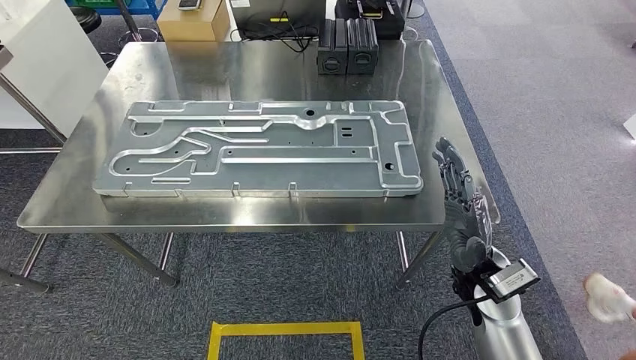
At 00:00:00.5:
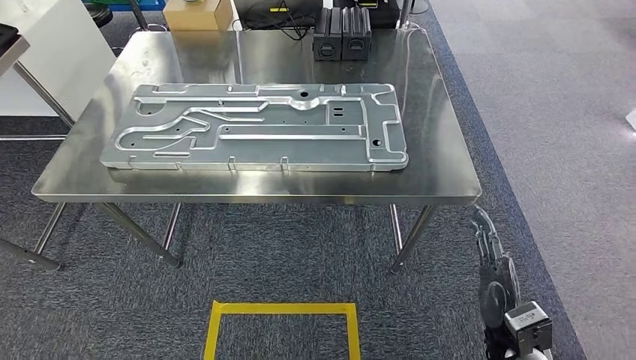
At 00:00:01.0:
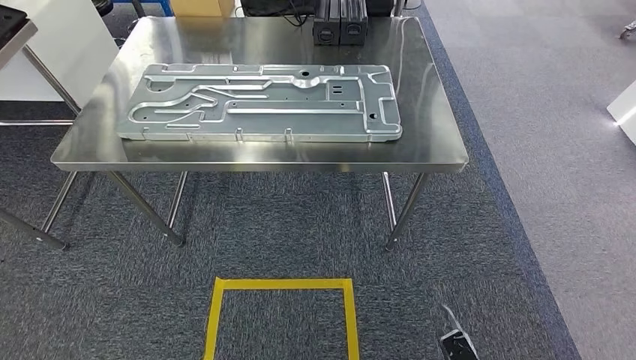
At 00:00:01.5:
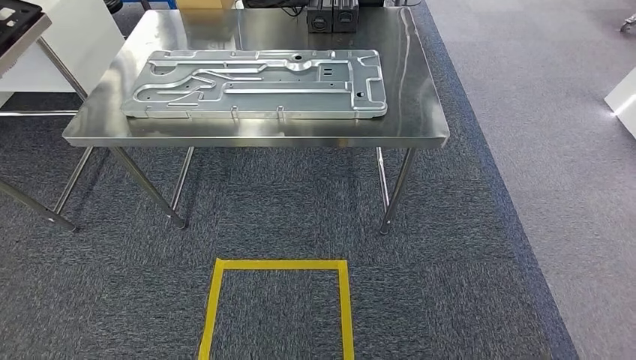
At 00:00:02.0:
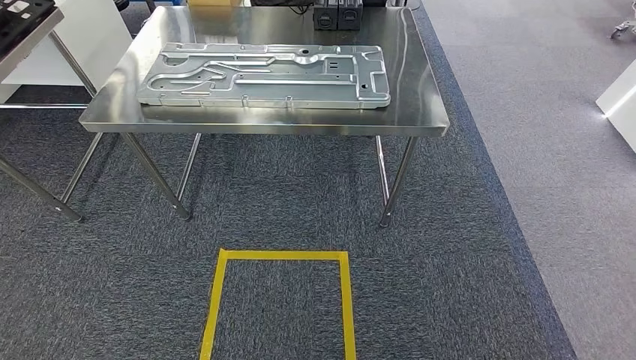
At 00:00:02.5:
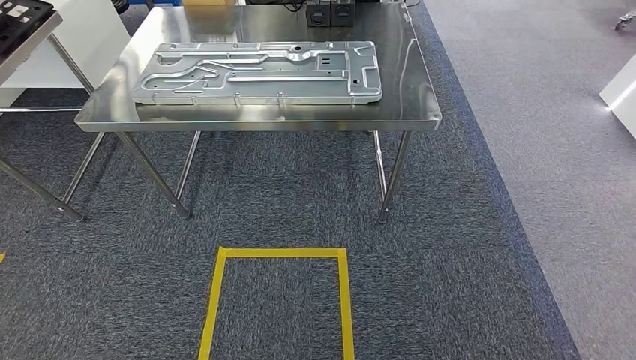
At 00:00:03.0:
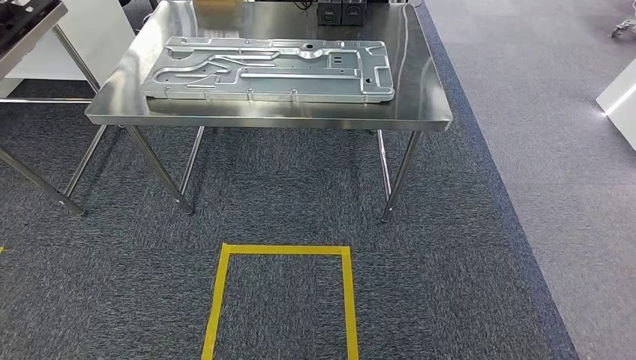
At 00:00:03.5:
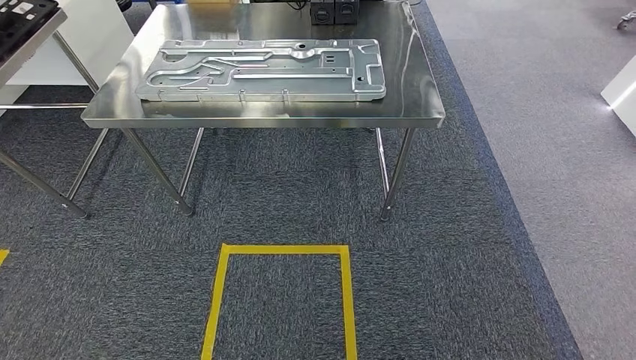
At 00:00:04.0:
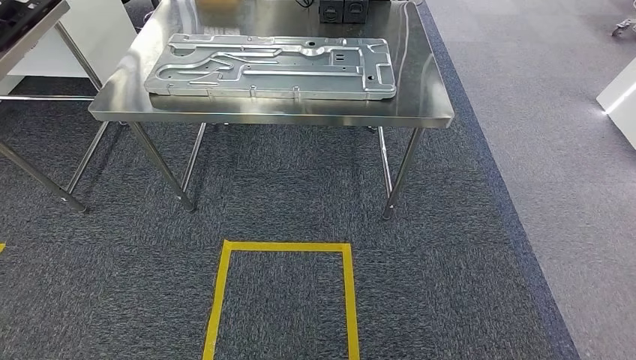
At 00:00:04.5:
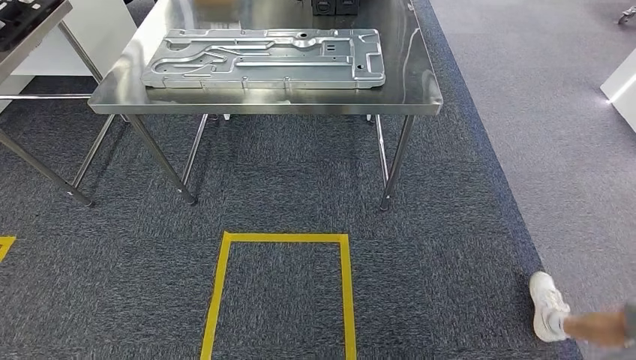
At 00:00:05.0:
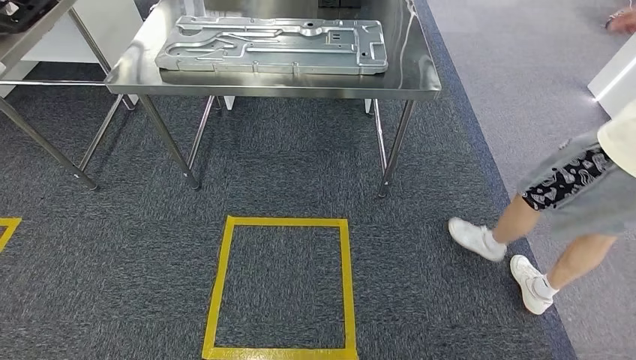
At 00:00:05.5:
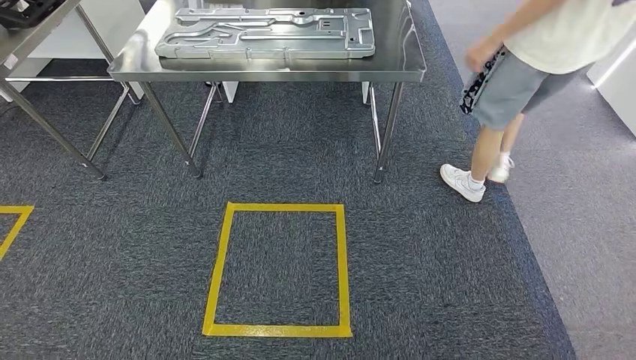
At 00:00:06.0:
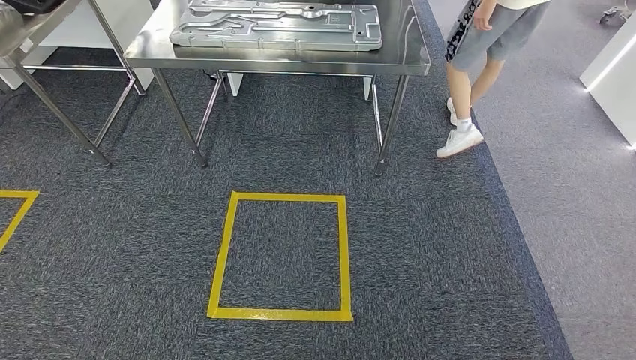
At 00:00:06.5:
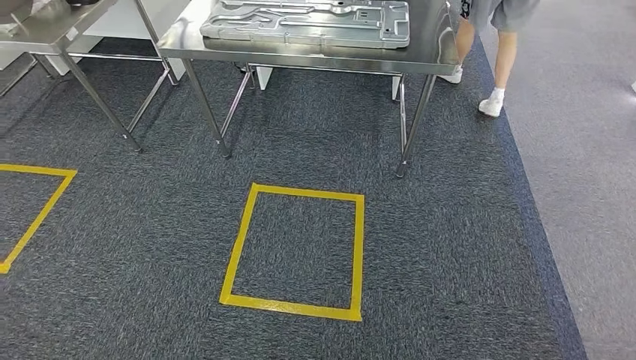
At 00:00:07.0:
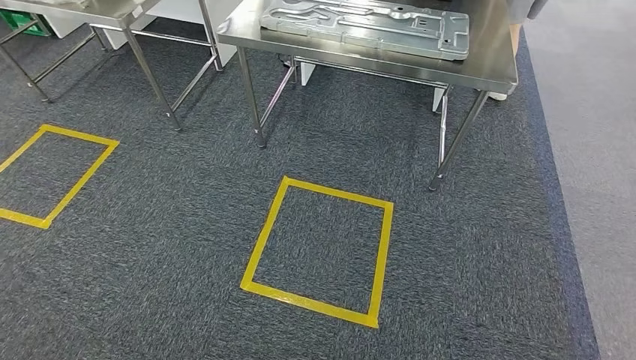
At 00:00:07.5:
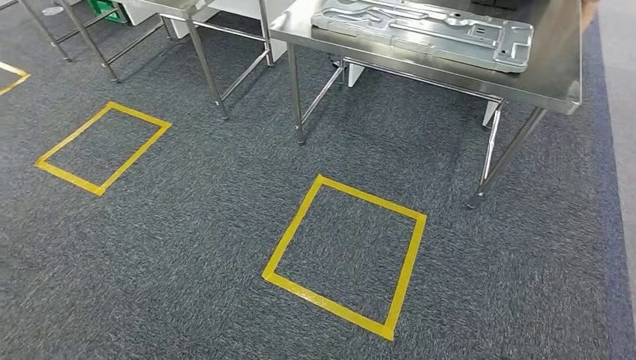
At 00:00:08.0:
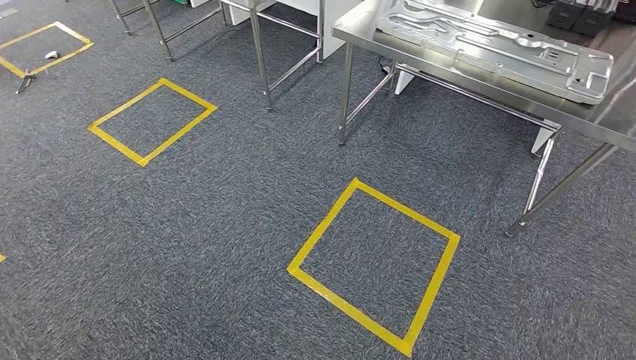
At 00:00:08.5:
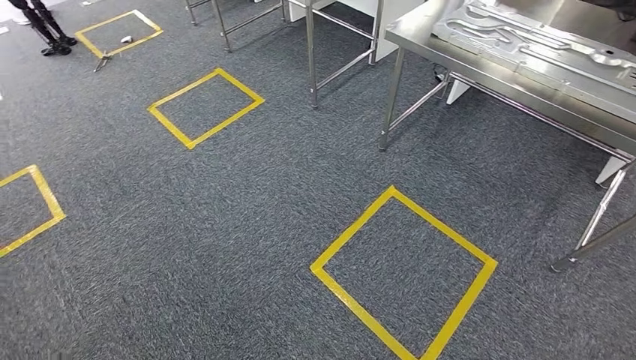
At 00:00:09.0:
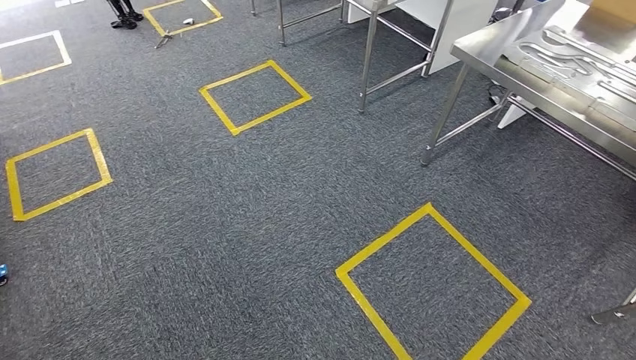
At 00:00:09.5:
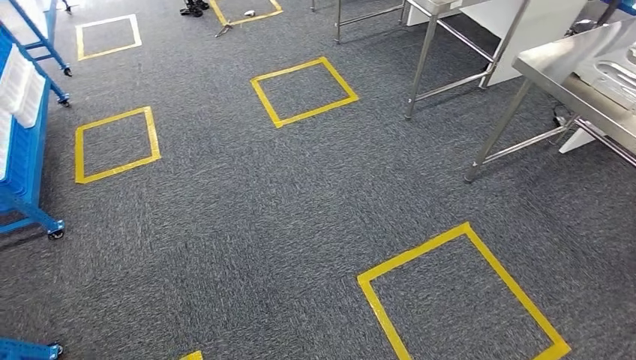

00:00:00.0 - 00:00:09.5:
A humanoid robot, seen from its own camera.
00:00:02.0 - 00:00:04.0: The hands move only a little.

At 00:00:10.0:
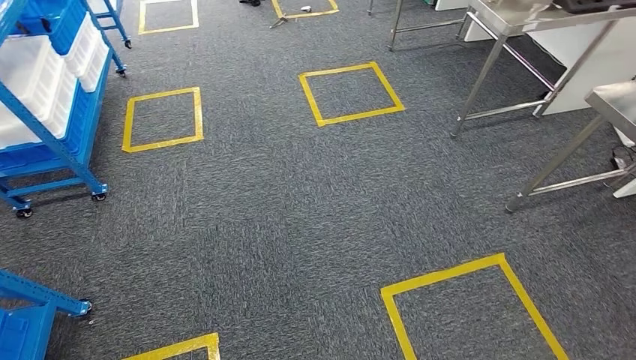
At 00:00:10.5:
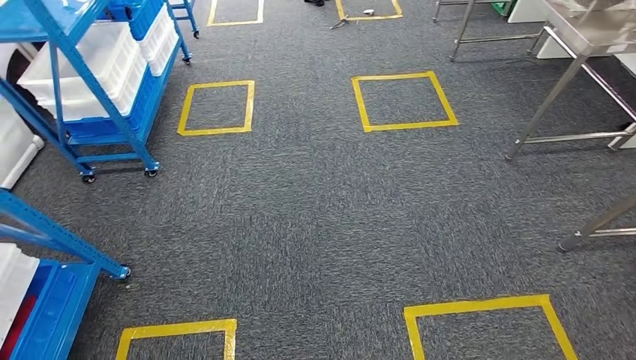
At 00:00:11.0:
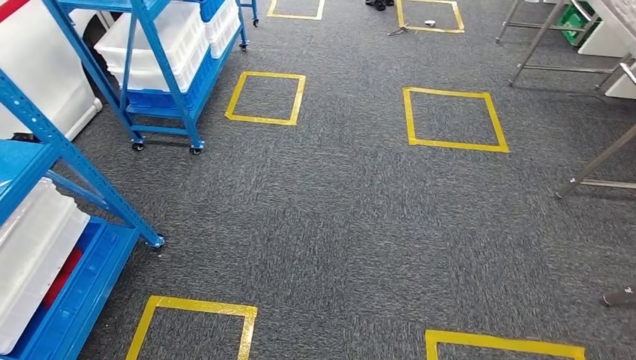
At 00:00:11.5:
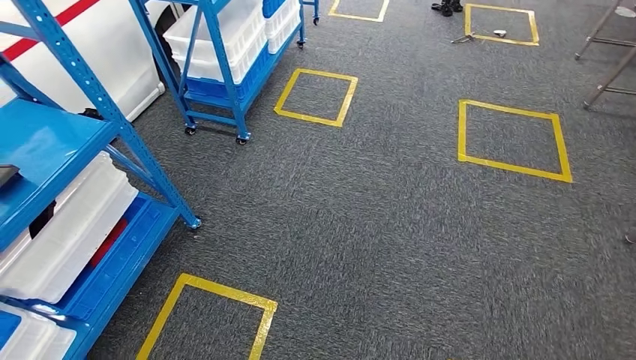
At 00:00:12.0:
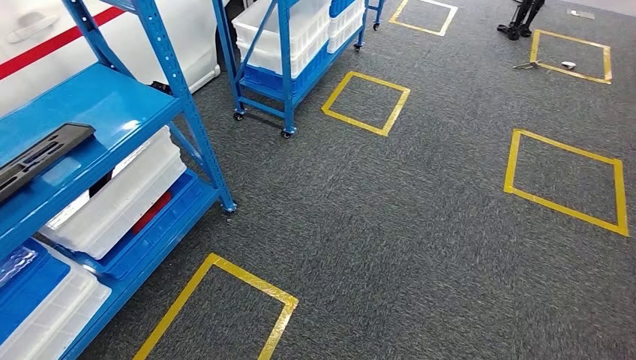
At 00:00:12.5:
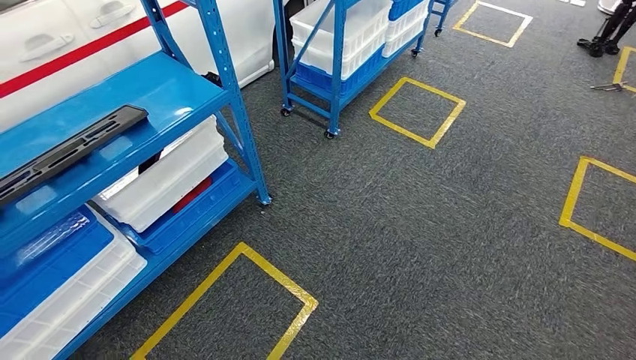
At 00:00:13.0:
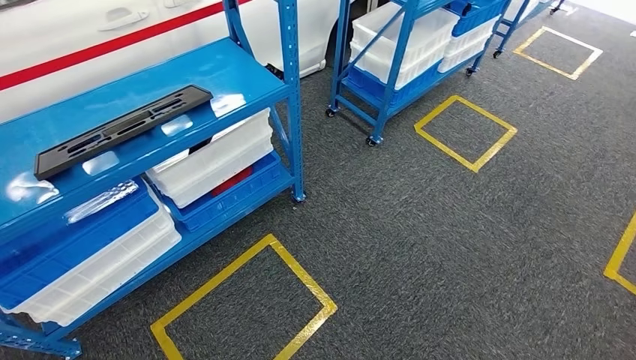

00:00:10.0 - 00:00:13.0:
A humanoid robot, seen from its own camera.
Step, 00:00:10.0 - 00:00:13.0: Return to the initial position at the shelf.

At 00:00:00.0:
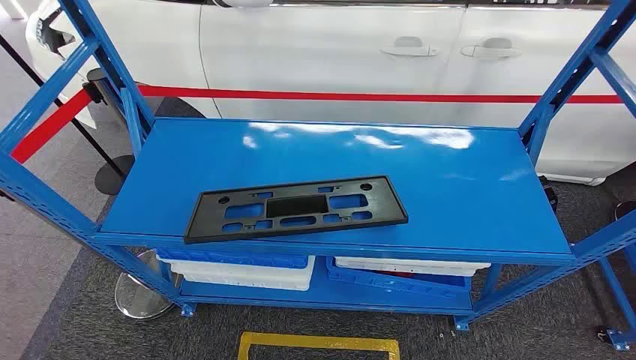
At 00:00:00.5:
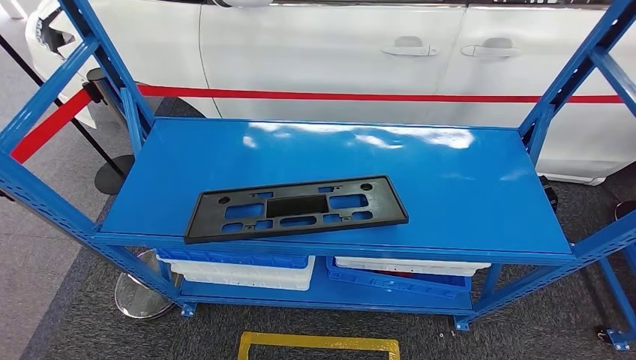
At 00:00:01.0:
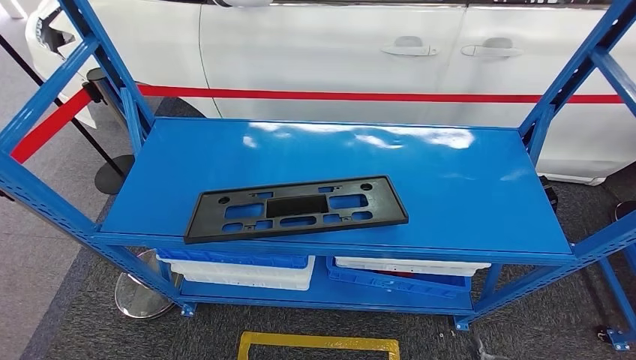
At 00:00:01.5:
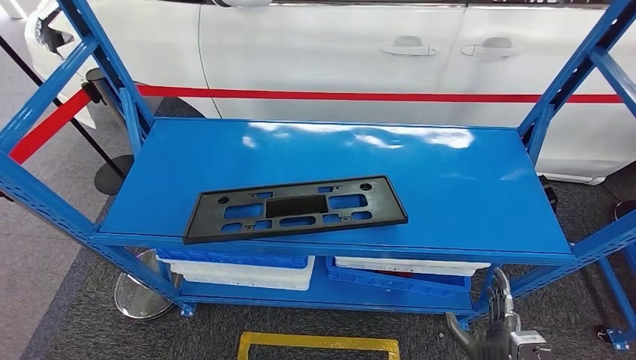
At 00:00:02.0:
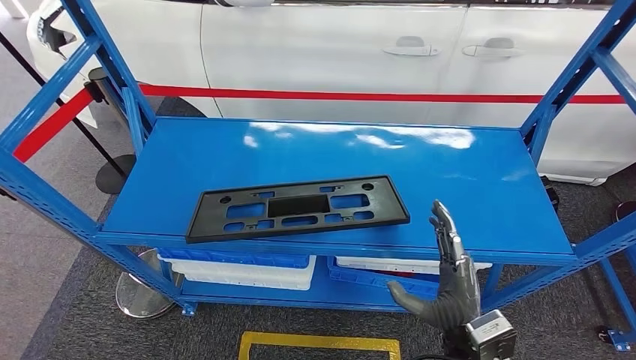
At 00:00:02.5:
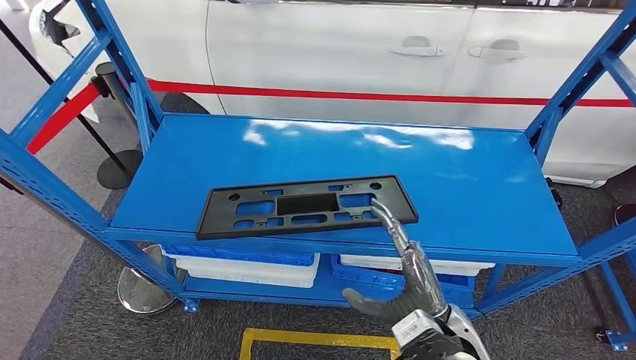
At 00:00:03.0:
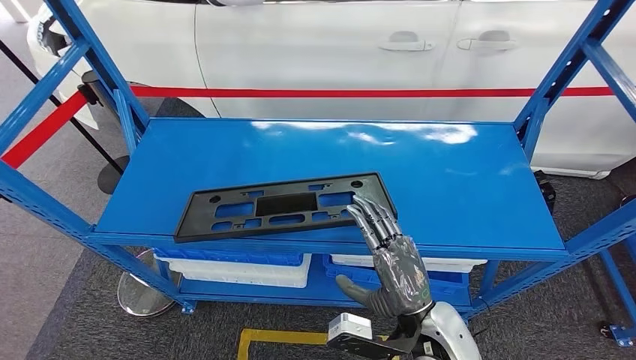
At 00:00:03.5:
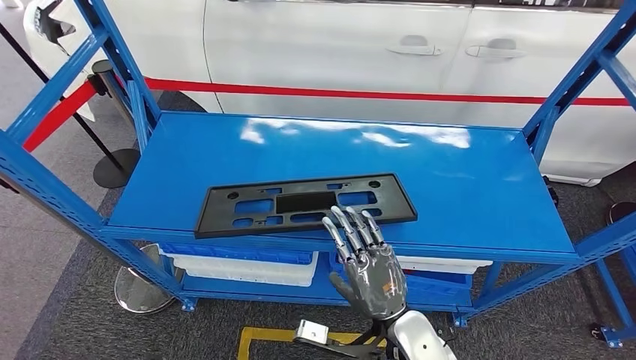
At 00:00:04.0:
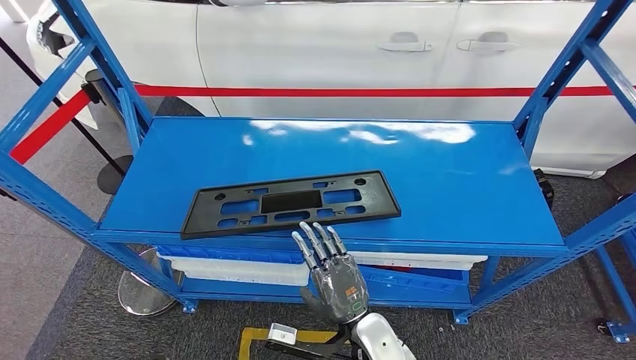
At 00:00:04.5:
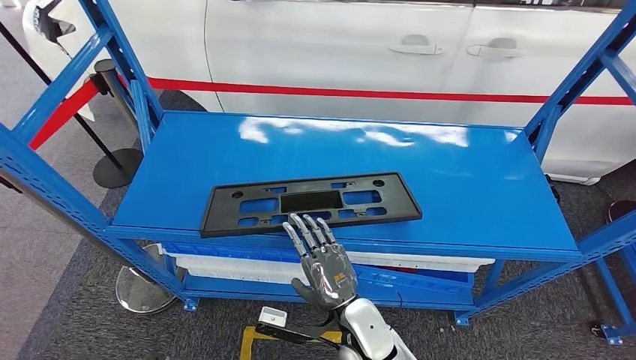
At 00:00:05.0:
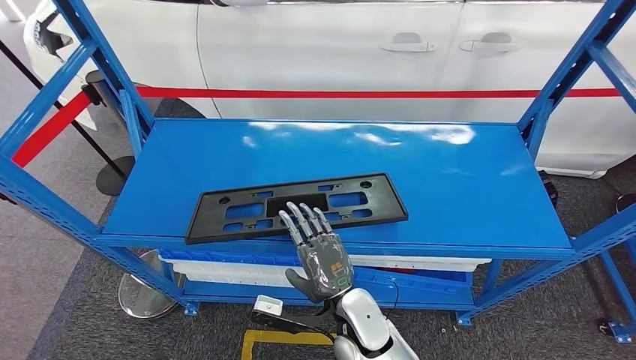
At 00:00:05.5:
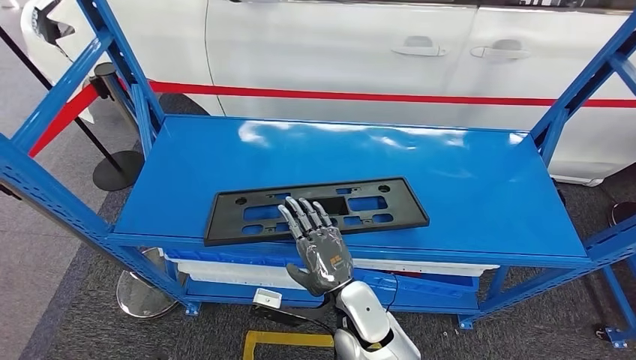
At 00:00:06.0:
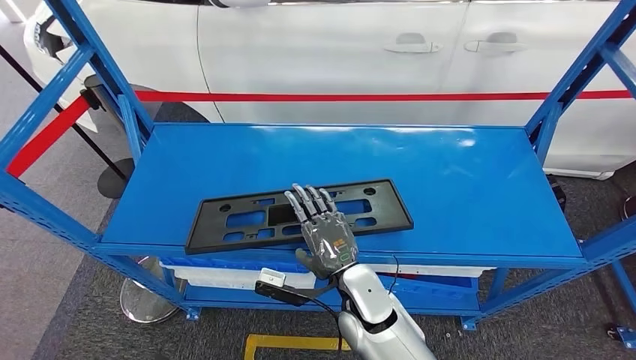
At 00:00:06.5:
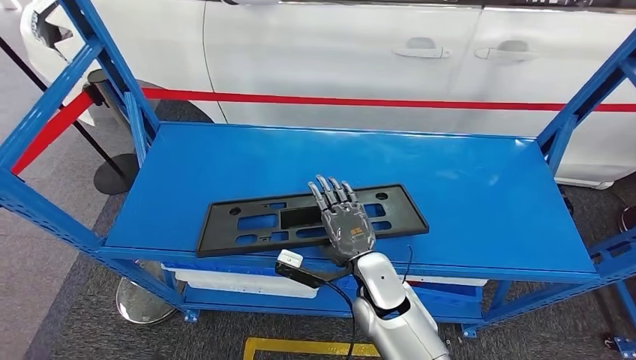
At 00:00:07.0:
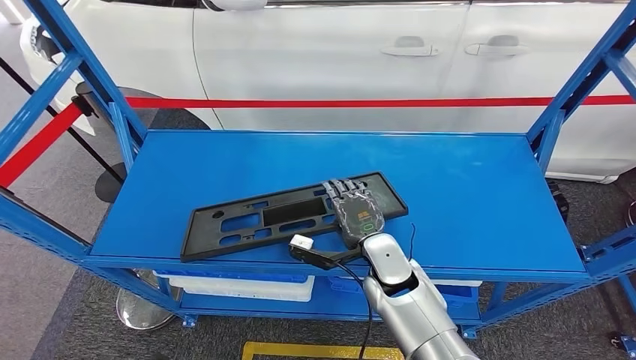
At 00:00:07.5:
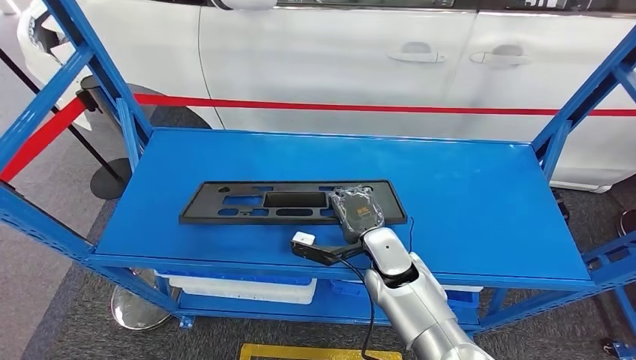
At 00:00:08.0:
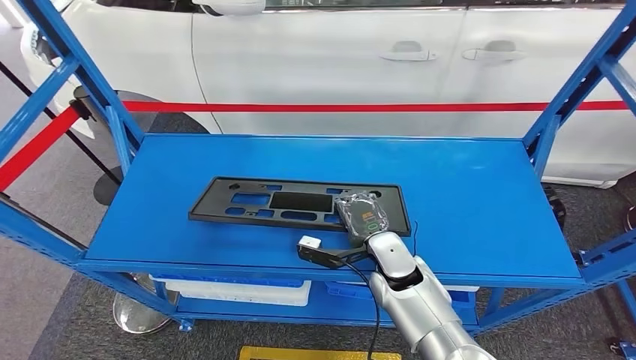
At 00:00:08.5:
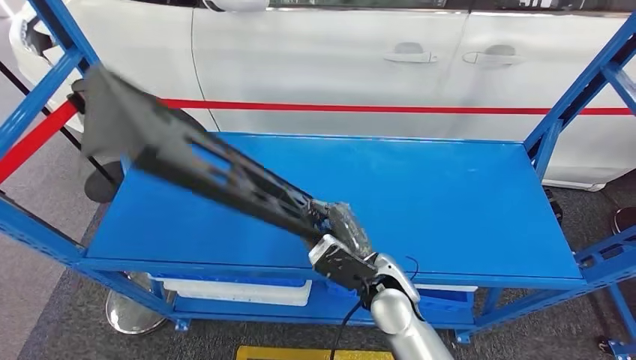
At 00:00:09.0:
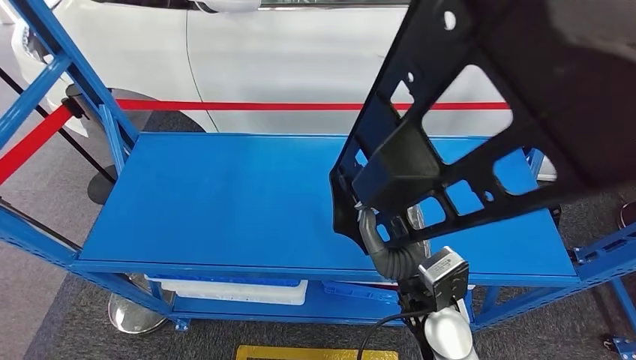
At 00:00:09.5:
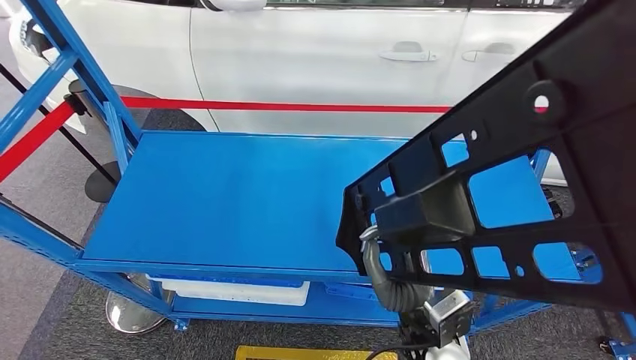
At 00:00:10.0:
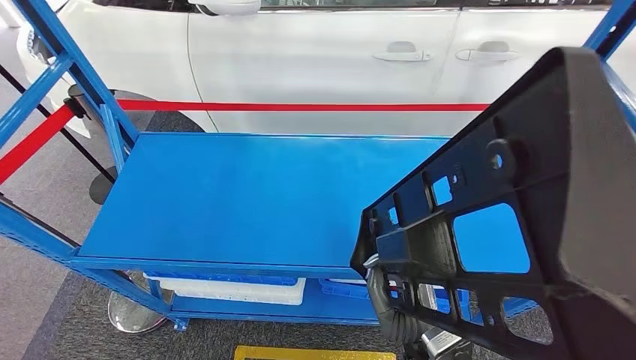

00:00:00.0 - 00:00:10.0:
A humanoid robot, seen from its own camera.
Step, 00:00:00.0 - 00:00:09.5: Pick up the large material from the shelf.
